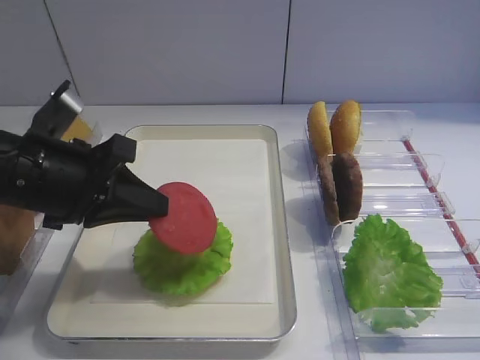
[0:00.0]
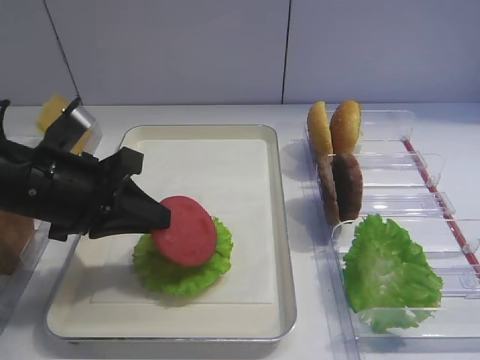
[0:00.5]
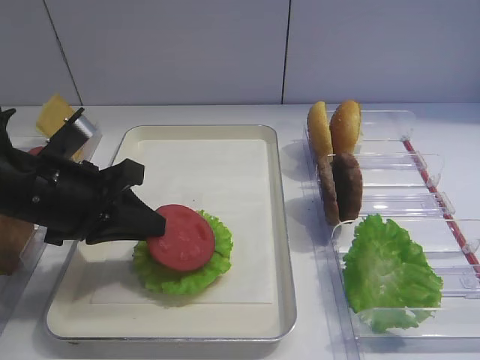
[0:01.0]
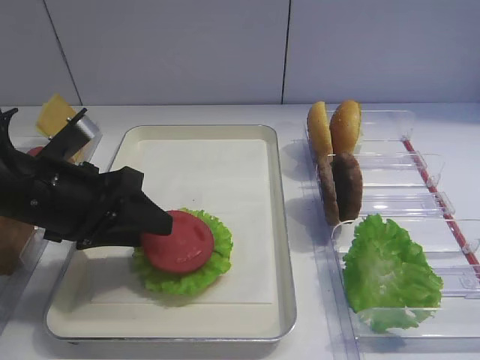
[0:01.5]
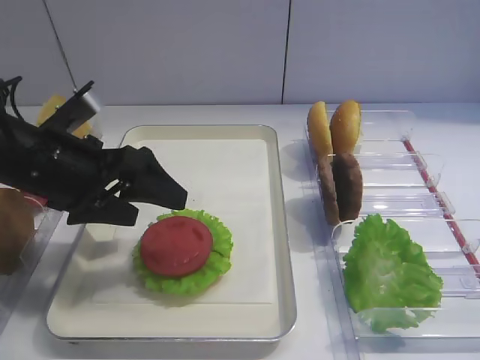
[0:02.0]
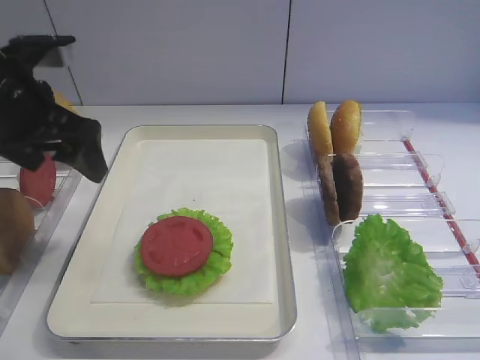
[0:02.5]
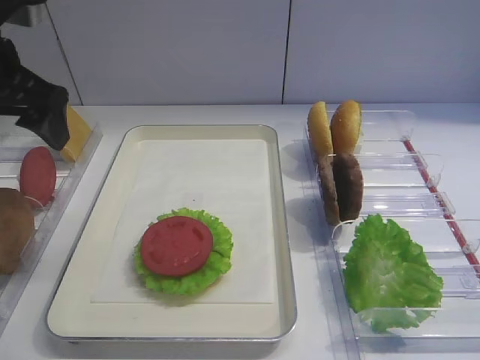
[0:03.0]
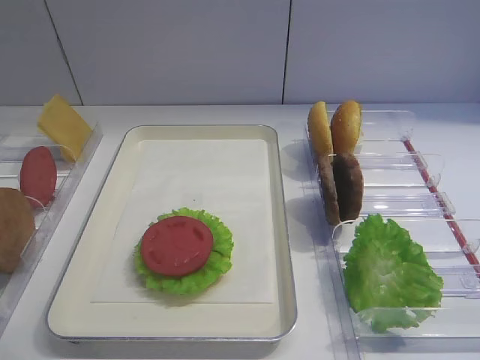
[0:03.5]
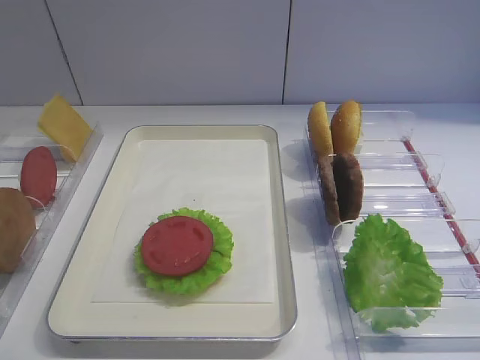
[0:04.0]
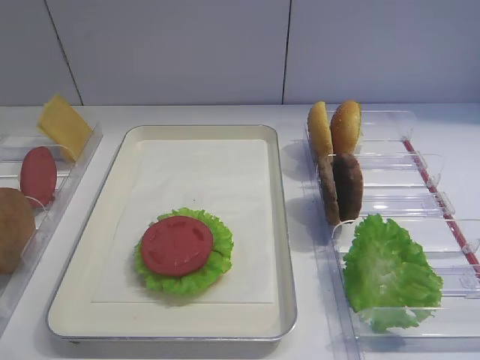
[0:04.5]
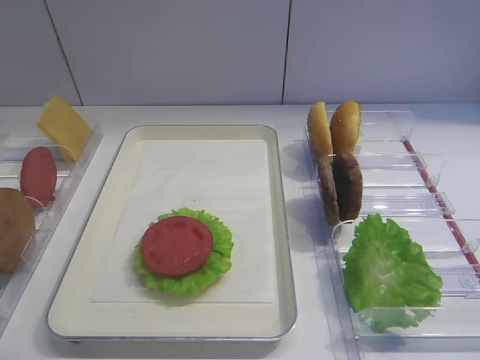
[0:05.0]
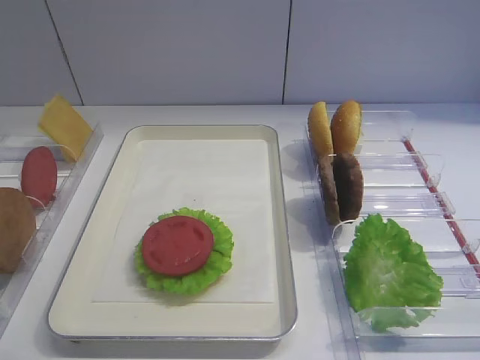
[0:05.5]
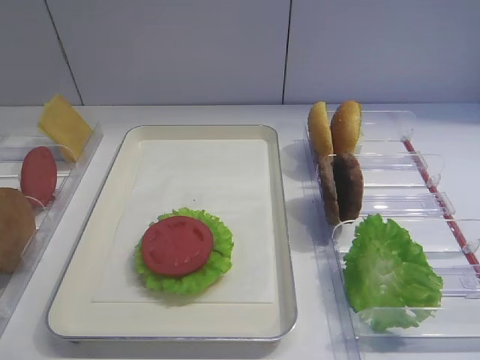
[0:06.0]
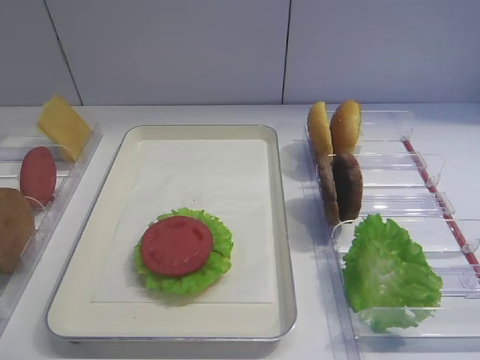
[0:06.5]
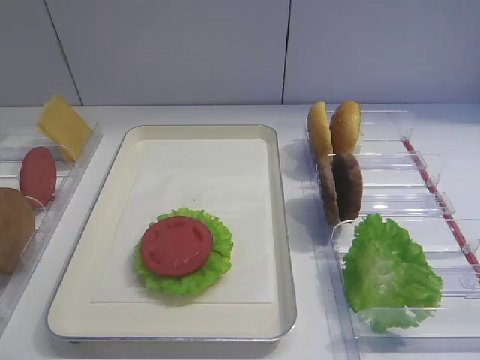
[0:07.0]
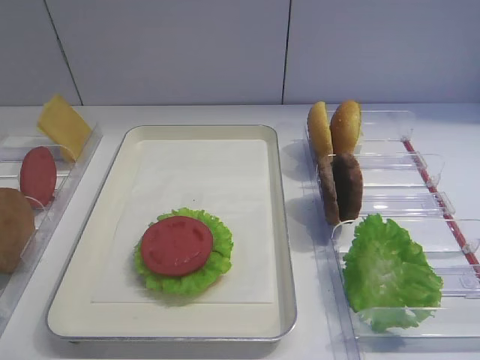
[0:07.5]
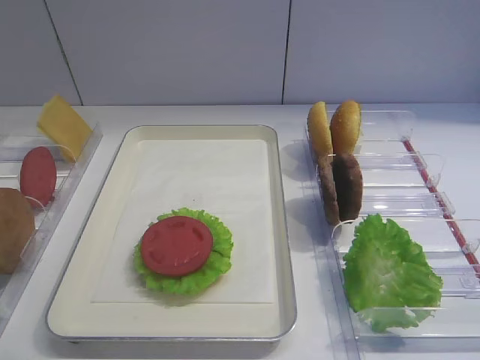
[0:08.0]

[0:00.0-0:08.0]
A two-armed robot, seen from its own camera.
0:00.0 to 0:02.0: The left gripper opens up.
0:02.0 to 0:04.0: The left gripper shifts approximately 30 cm upward, backward and to the left.
